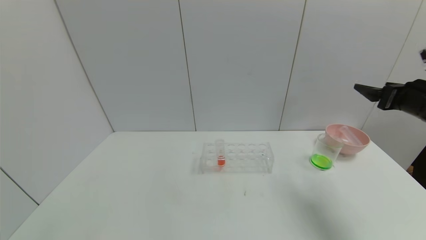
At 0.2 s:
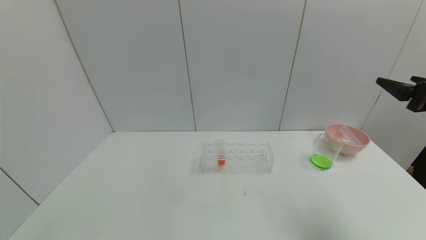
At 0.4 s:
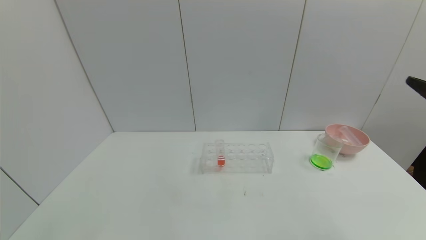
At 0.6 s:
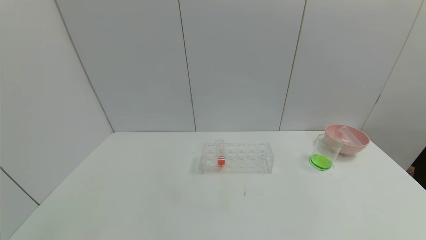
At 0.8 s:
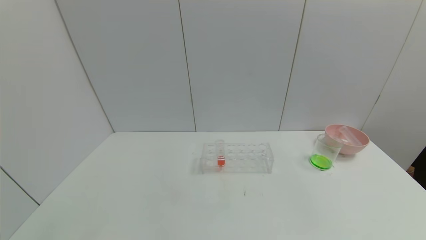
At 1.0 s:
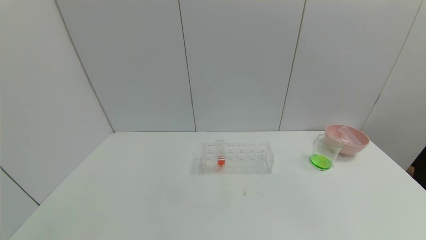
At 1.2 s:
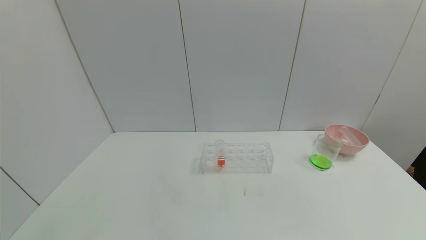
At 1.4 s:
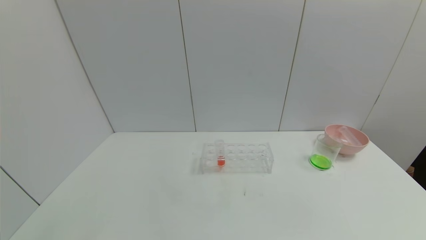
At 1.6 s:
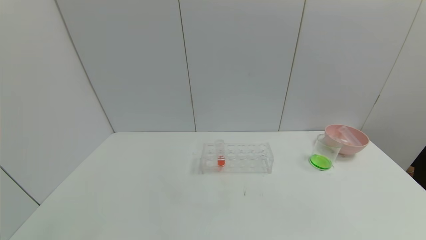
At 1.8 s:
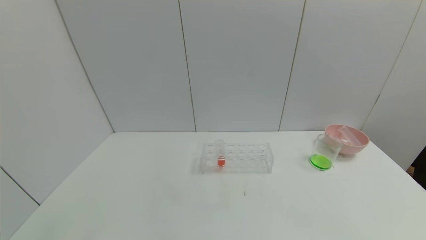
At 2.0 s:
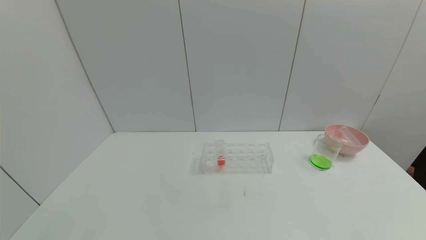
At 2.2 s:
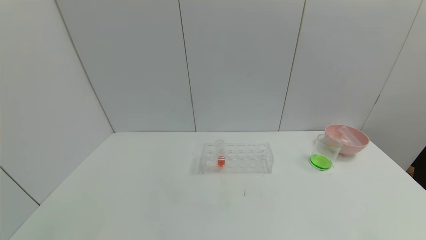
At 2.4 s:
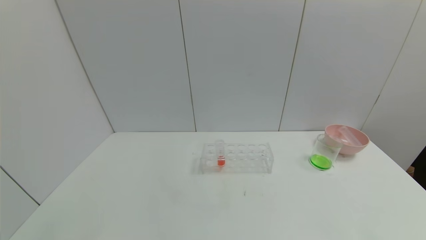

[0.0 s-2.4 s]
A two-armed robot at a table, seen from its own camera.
Task of the whole recording: pick up the test tube with yellow pigment and the test tube with blue pigment by grippers and pour them into the beaker.
0.0 to 1.2 s: The right gripper moves backward, about 35 cm.

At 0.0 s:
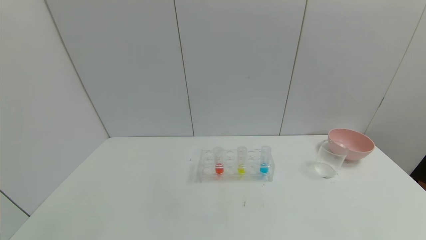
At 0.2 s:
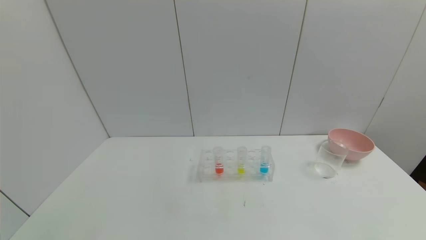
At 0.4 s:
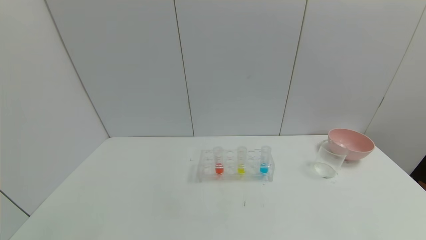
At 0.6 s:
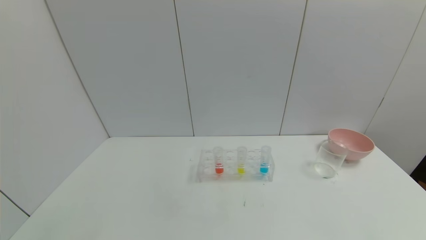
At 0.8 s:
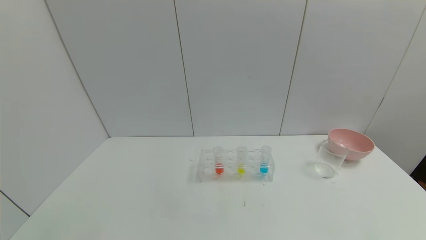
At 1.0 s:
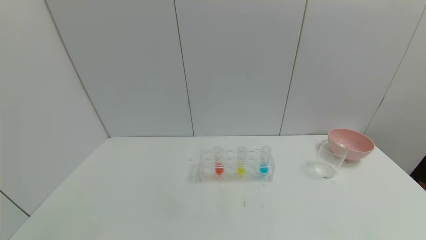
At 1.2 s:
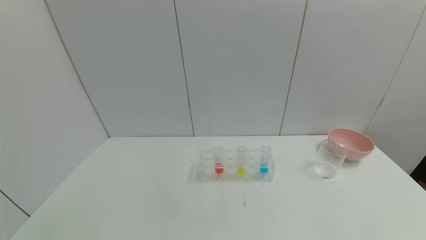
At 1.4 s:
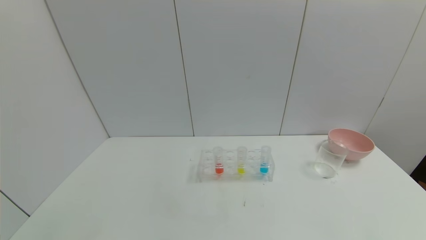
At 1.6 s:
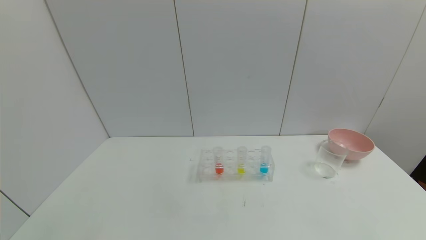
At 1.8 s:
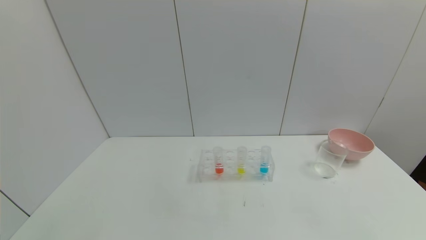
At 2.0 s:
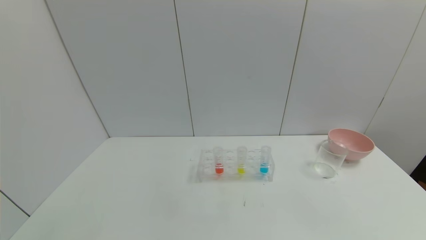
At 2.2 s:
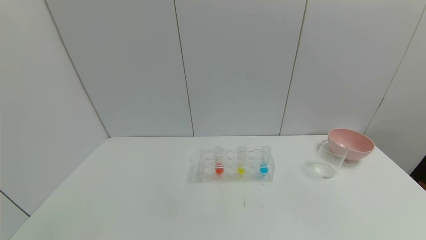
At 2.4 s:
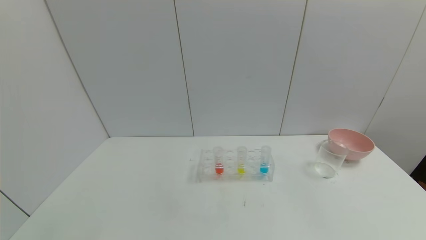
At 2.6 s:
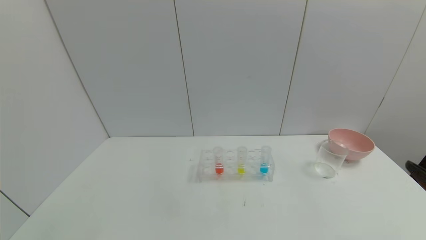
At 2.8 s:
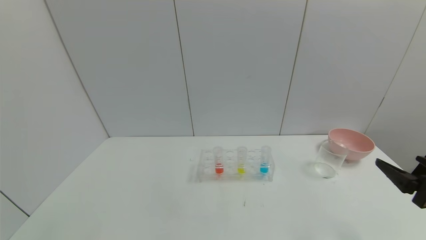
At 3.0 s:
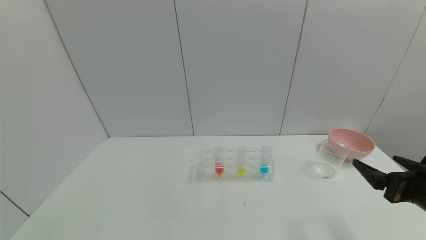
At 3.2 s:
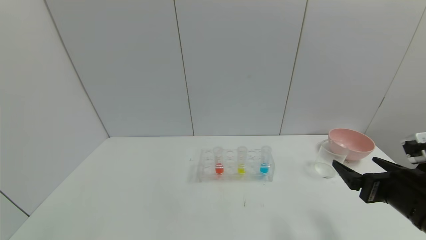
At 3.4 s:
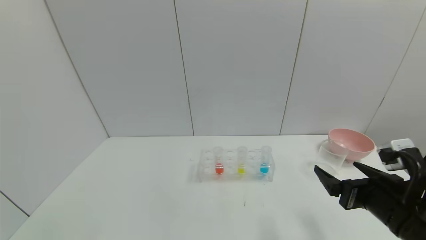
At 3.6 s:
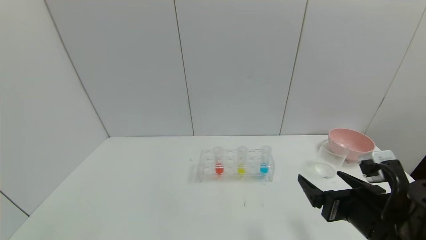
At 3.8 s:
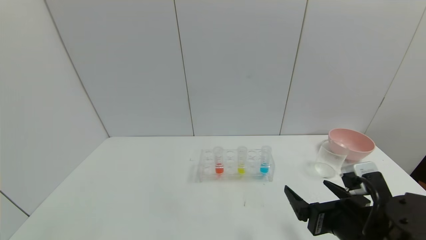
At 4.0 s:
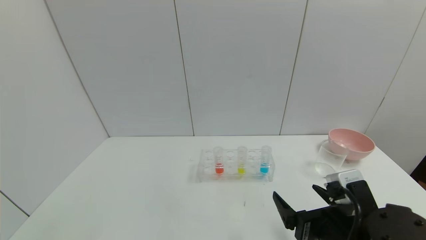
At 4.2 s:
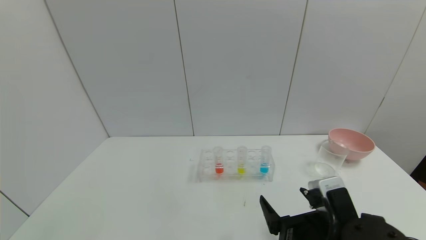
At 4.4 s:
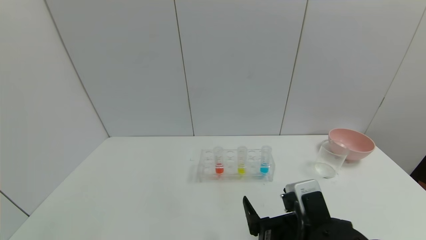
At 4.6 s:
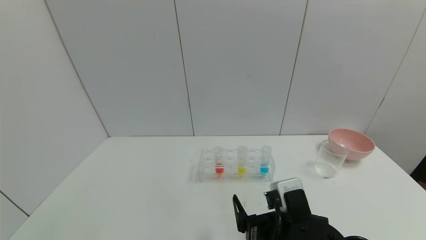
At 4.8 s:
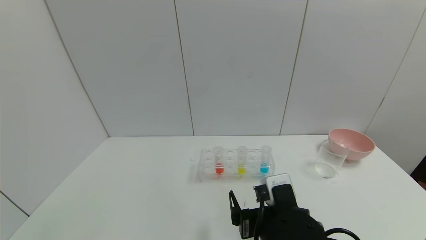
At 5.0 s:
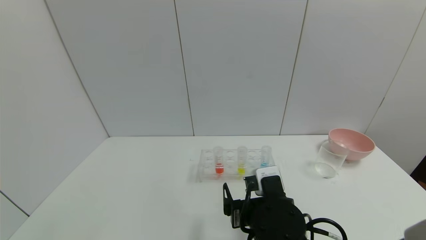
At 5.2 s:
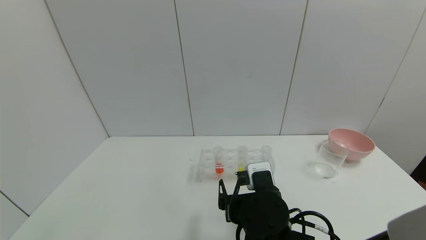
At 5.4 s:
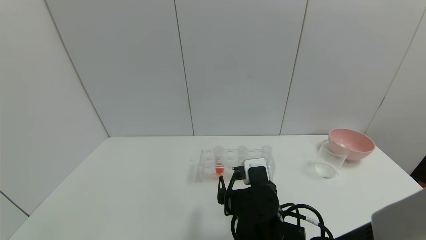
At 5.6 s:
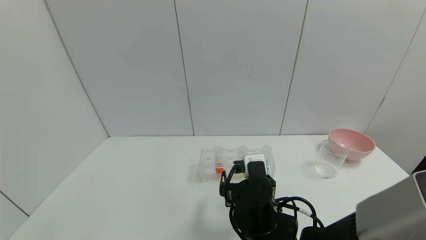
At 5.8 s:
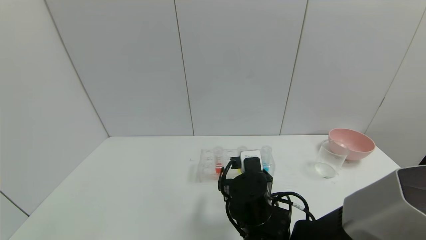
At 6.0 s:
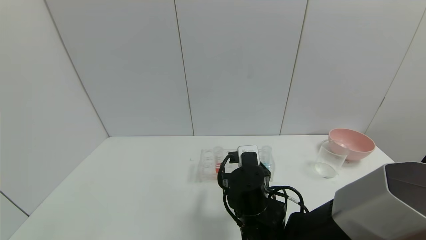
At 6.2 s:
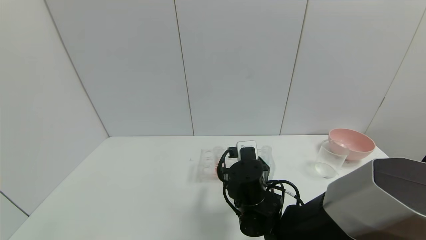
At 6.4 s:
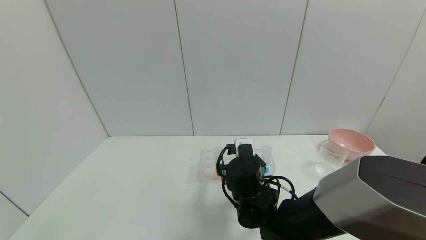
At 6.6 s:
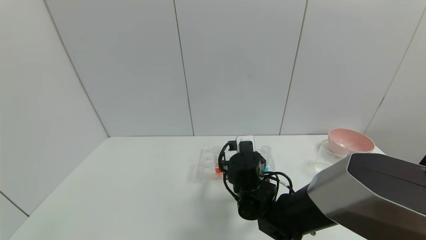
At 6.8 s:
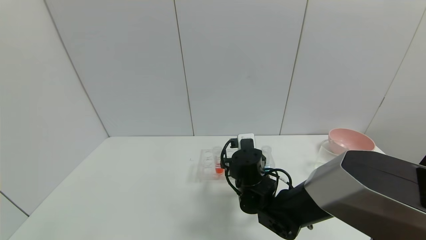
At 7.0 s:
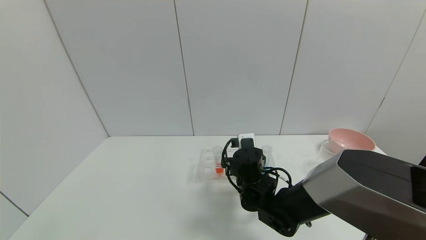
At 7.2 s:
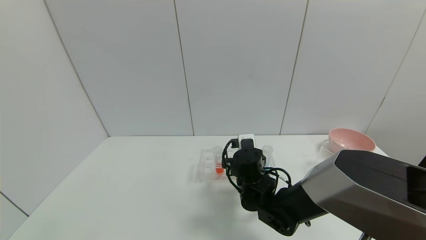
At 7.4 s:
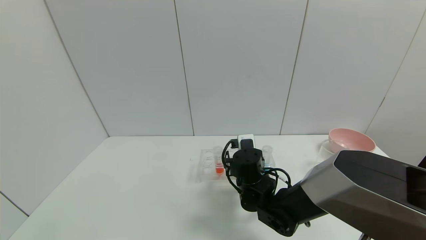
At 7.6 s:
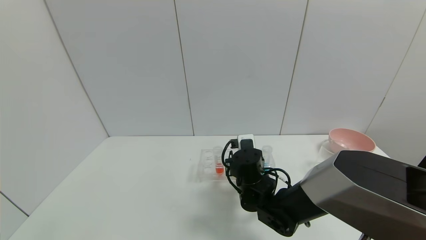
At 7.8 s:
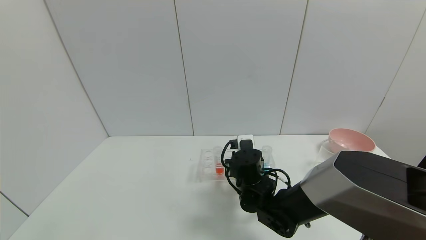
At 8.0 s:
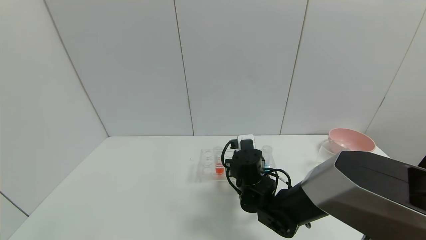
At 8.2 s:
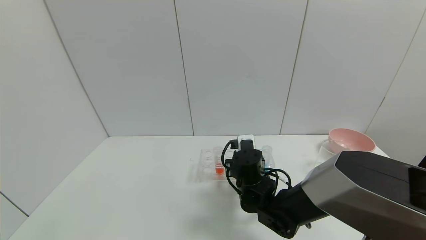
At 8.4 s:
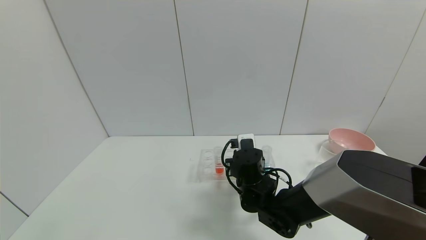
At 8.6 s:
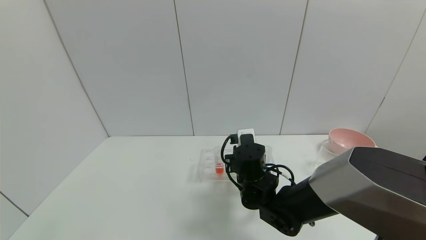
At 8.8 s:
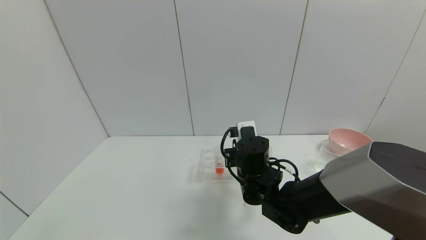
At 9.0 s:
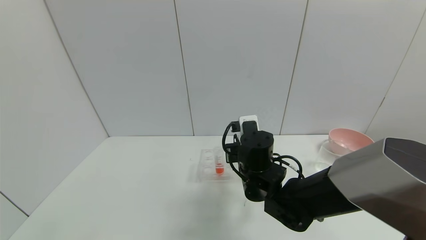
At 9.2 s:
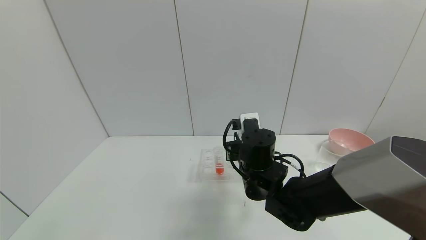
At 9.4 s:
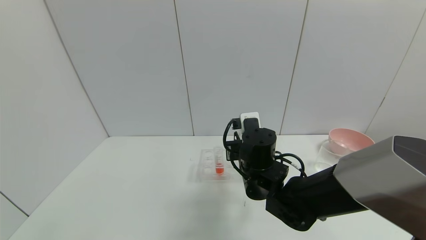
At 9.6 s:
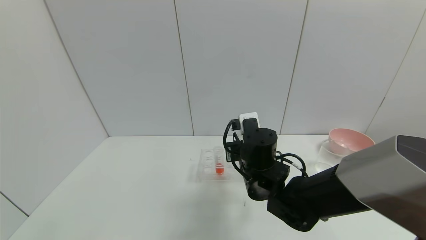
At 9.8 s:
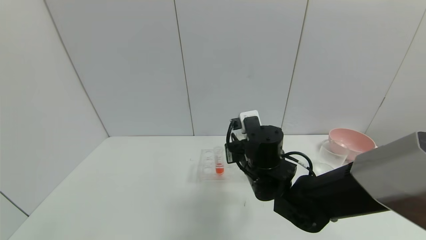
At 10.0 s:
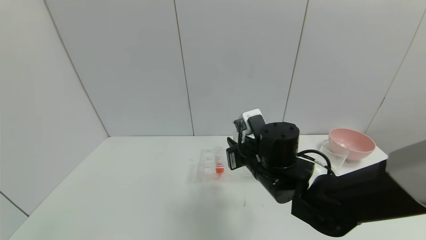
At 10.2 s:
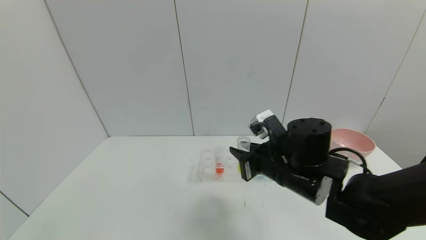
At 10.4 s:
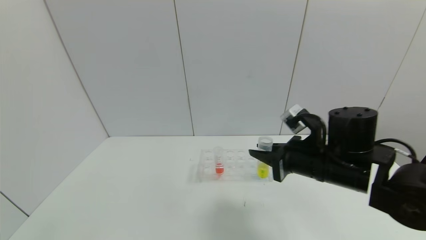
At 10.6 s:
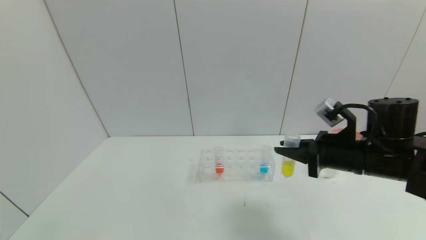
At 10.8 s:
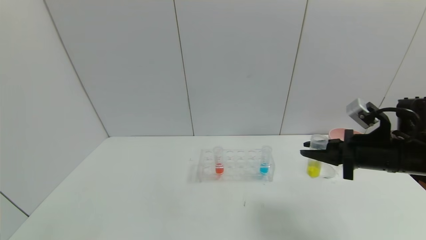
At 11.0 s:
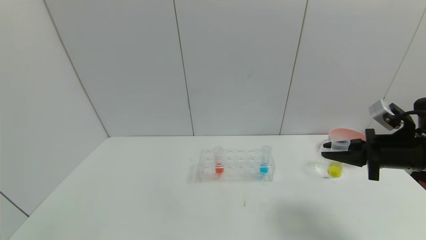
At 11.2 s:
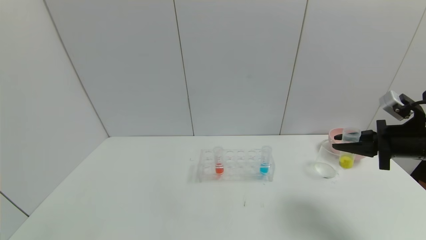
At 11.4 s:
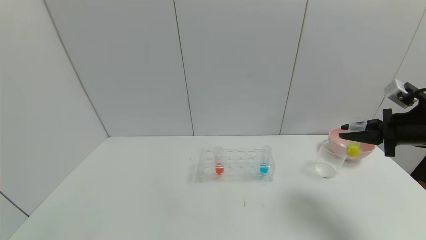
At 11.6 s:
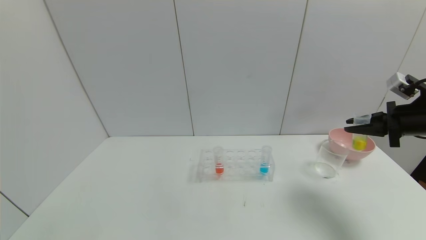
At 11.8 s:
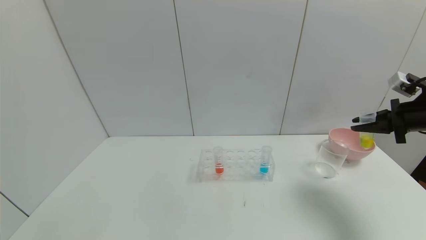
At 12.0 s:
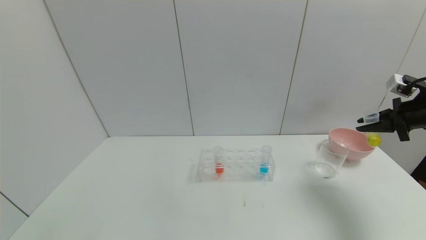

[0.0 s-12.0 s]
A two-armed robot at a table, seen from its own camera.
Task of the whole recording: pick up the test tube with yellow pigment and the test tube with blue pigment by grippers and pour them into the beaker.
Step, 0.0 to 11.0 s: Pick up the test tube containing the yellow reagent with right gripper.
1.6 to 3.0 s: The right gripper is displaced forward by about 20 cm.
3.0 to 4.4 s: The right gripper travels to the left by roughly 20 cm.
4.4 to 6.0 s: The right gripper is displaced forward and to the left by roughly 15 cm.
6.0 to 7.6 s: The right gripper goes roughly 5 cm forward, and closes its fingers.
7.6 to 9.0 s: The right gripper travels upward by approximately 5 cm, and closes its fingers.
9.0 to 10.4 s: The right gripper goes roughly 15 cm to the right and upward.
10.4 to 12.0 s: The right gripper is displaced to the right by roughly 25 cm.

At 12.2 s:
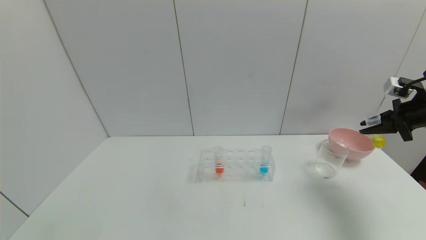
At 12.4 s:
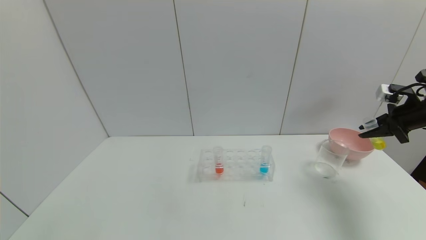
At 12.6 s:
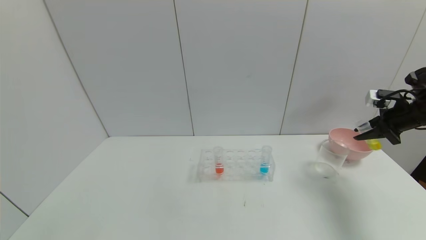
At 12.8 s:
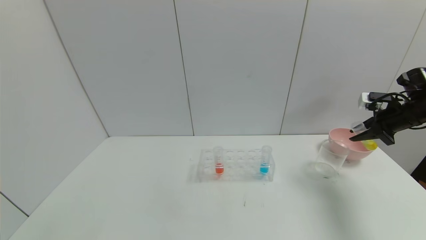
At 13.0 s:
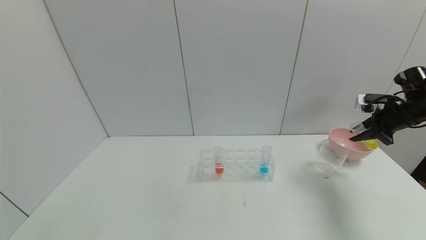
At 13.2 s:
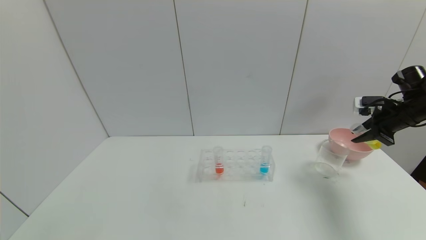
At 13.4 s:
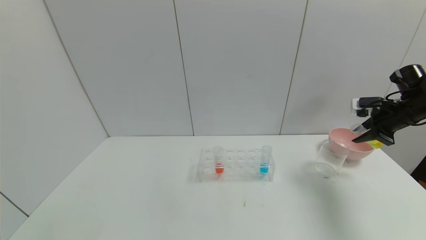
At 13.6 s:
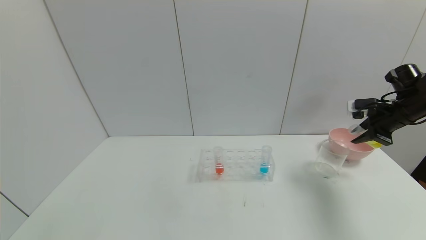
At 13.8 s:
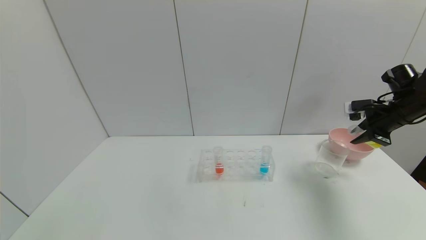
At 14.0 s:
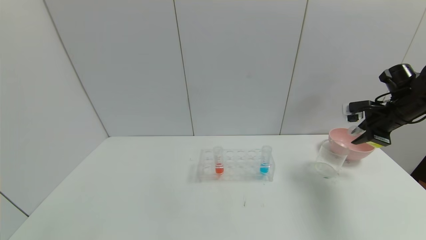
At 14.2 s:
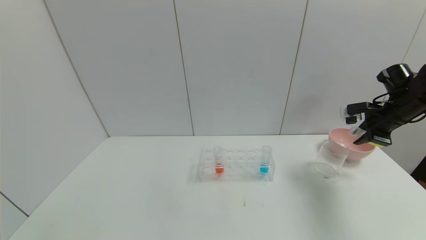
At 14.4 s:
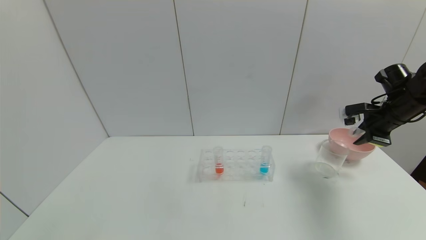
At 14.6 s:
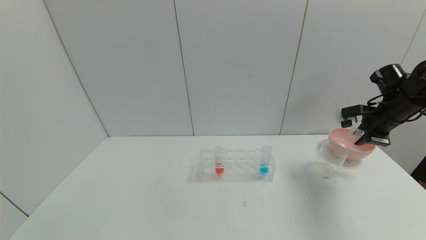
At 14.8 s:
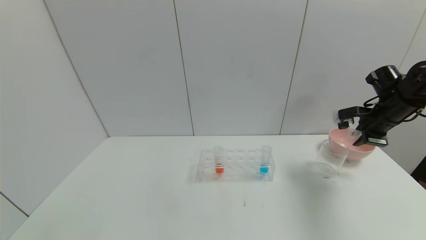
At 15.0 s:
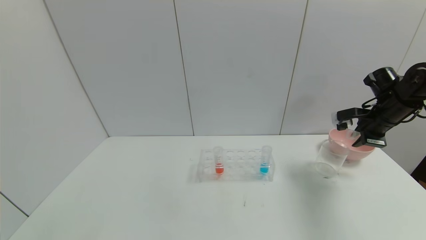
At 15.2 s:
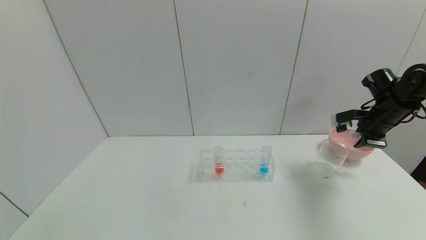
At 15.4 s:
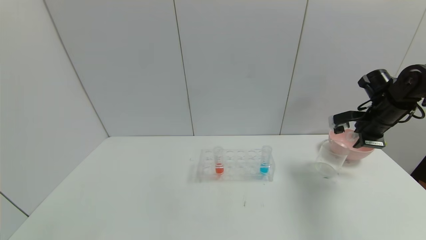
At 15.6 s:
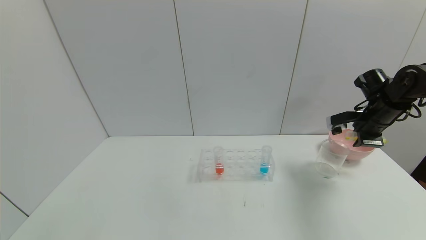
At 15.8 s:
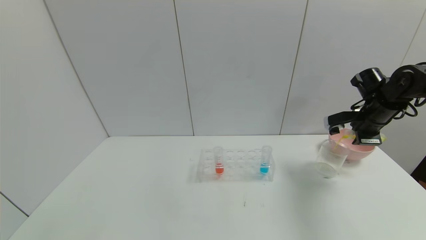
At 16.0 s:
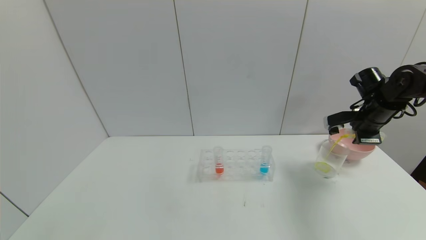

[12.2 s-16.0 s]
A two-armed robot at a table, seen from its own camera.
Task of the whole recording: pick up the test tube with yellow pigment and the test tube with blue pigment by grippers and pour them into the beaker.
12.2 to 13.4 s: The right gripper changes place by some 5 cm.
13.4 to 14.8 s: The grippers move only a little.
14.8 to 16.0 s: The grippers make only small movements.
